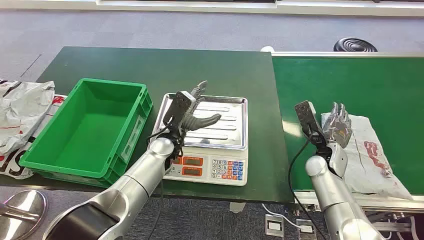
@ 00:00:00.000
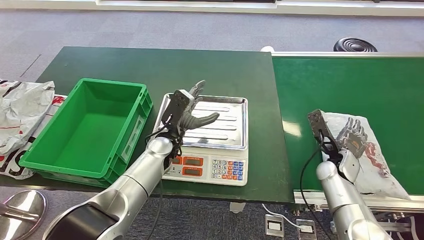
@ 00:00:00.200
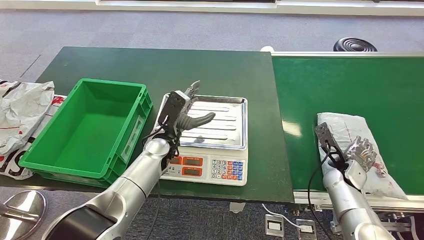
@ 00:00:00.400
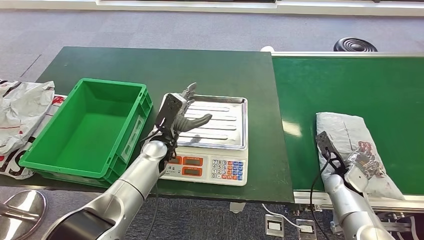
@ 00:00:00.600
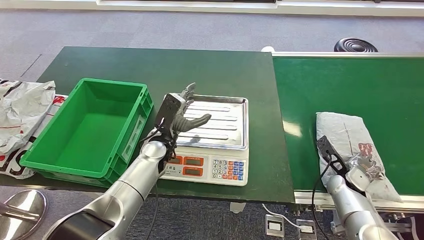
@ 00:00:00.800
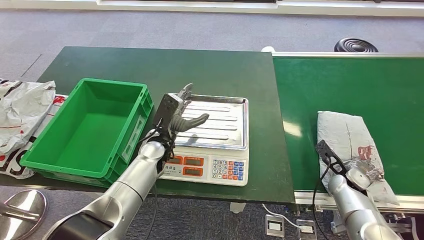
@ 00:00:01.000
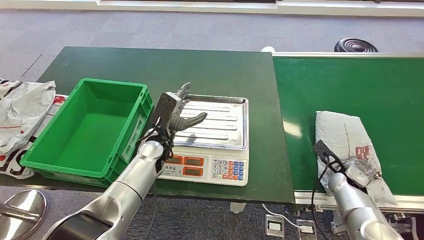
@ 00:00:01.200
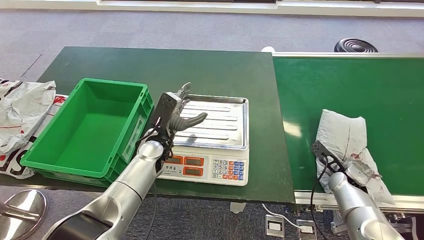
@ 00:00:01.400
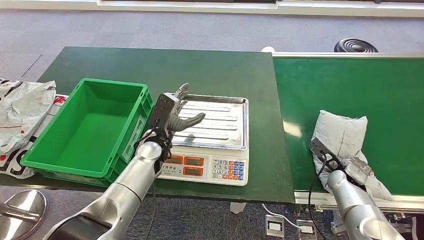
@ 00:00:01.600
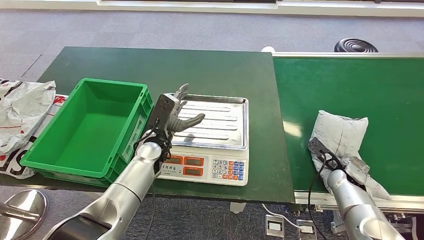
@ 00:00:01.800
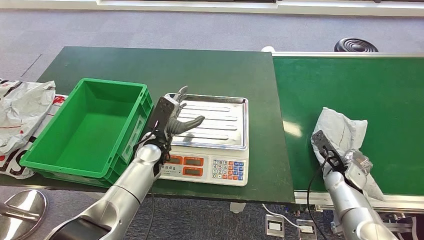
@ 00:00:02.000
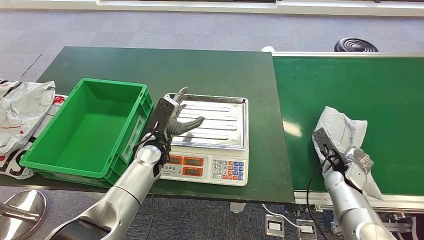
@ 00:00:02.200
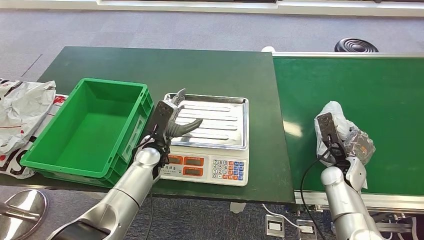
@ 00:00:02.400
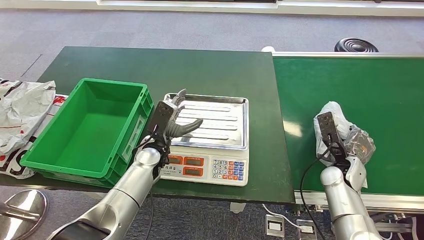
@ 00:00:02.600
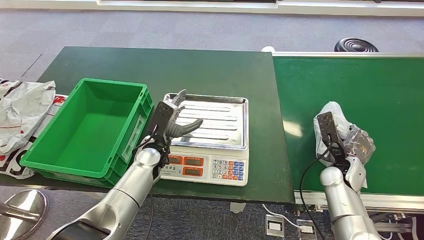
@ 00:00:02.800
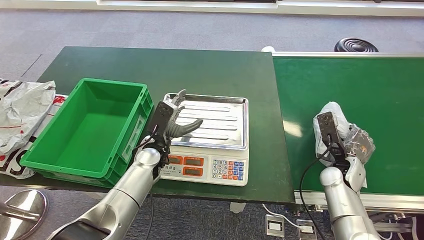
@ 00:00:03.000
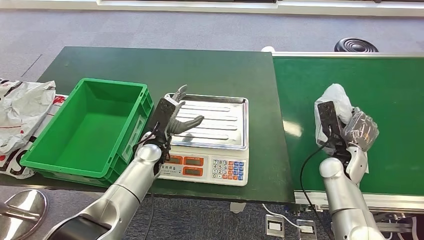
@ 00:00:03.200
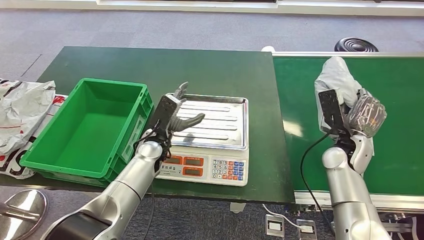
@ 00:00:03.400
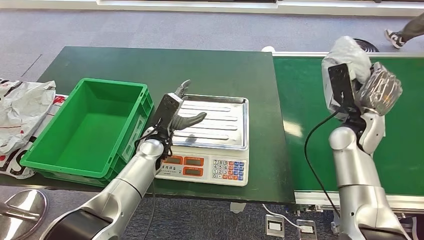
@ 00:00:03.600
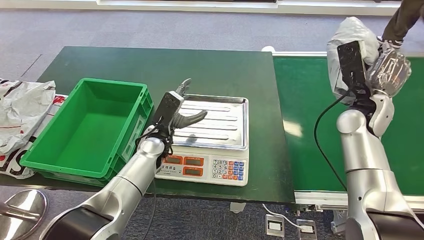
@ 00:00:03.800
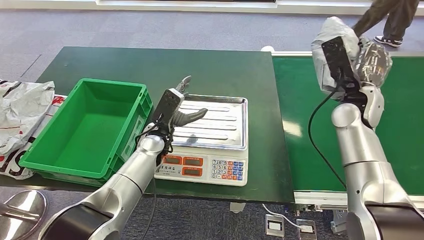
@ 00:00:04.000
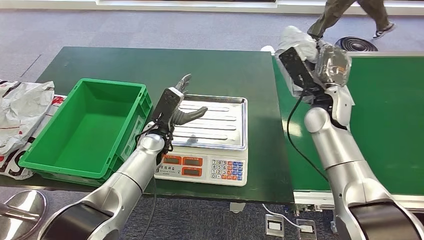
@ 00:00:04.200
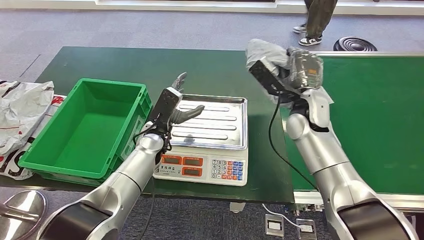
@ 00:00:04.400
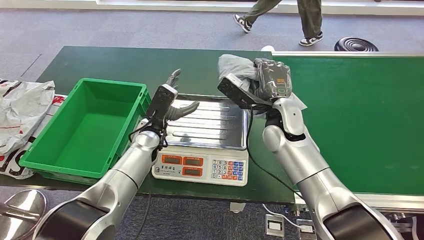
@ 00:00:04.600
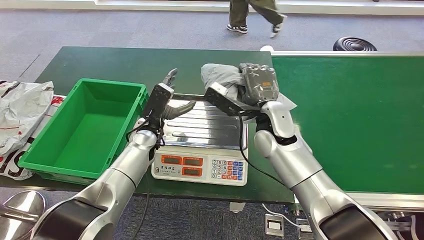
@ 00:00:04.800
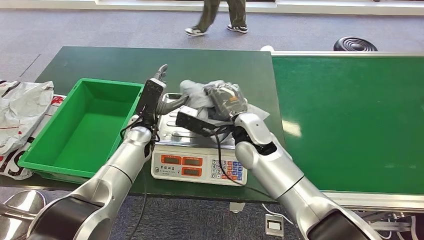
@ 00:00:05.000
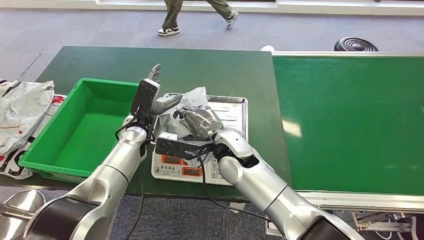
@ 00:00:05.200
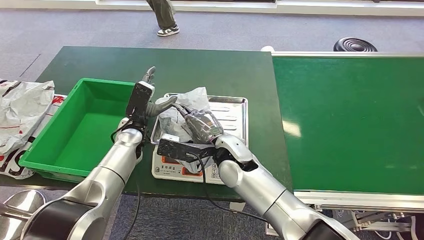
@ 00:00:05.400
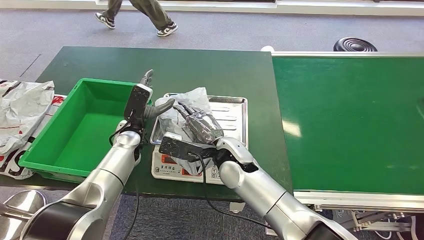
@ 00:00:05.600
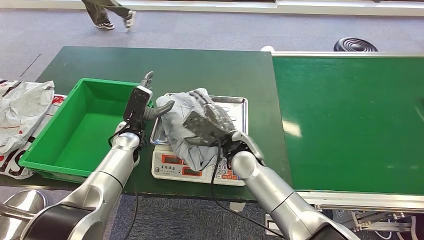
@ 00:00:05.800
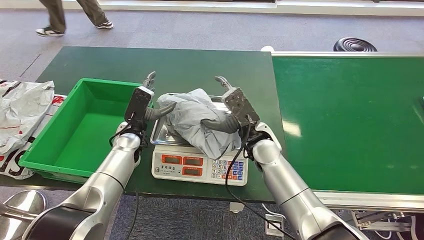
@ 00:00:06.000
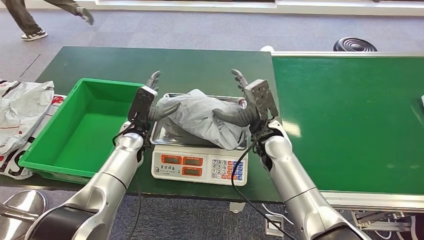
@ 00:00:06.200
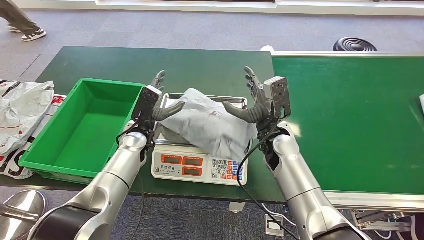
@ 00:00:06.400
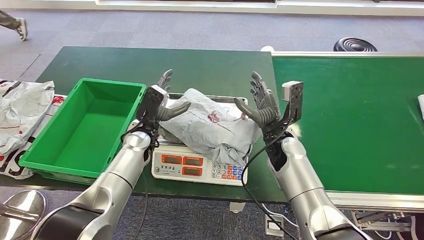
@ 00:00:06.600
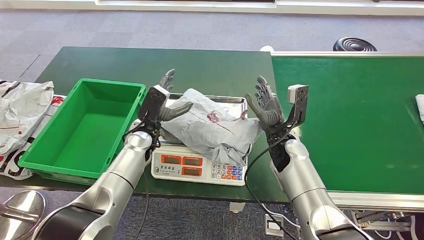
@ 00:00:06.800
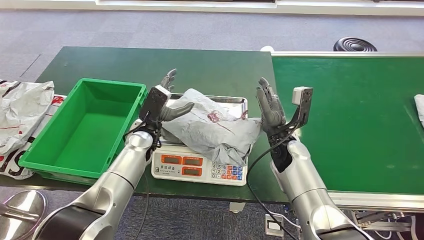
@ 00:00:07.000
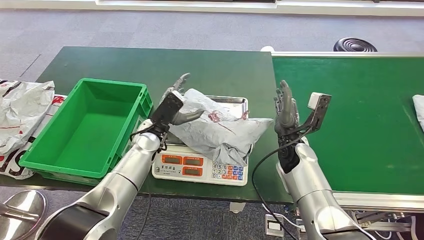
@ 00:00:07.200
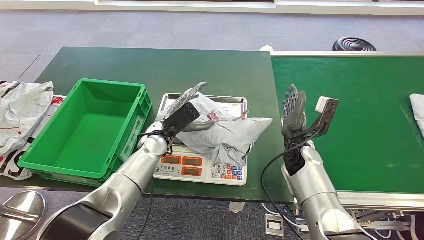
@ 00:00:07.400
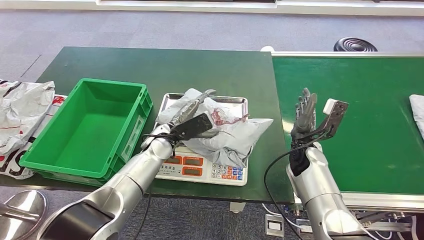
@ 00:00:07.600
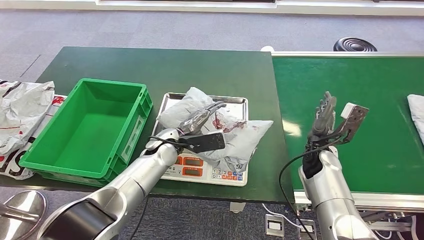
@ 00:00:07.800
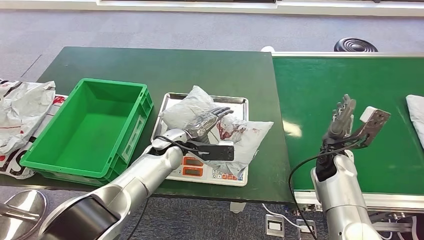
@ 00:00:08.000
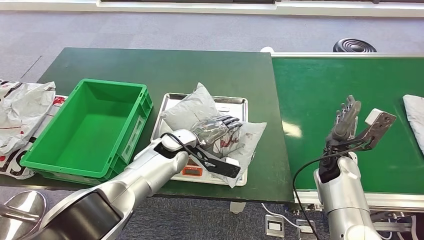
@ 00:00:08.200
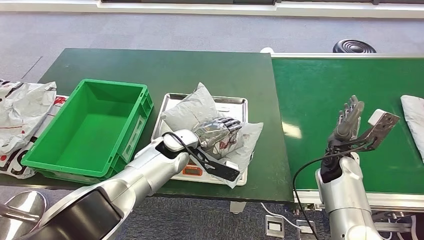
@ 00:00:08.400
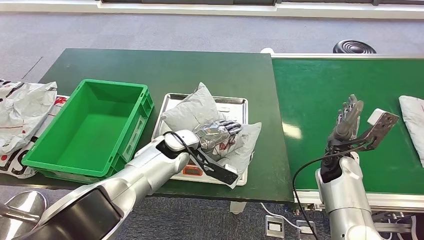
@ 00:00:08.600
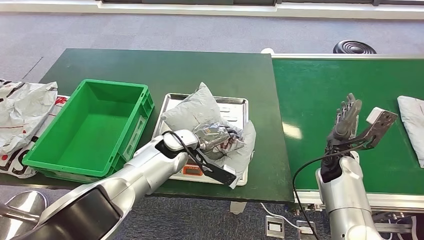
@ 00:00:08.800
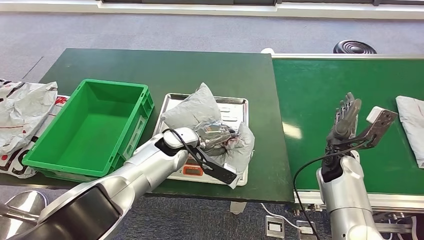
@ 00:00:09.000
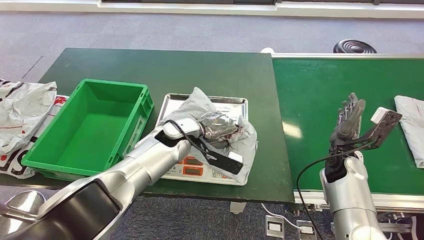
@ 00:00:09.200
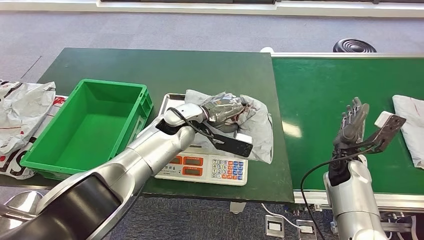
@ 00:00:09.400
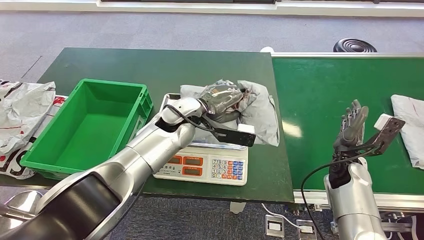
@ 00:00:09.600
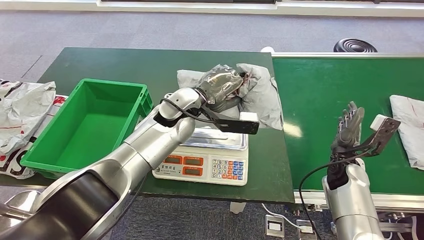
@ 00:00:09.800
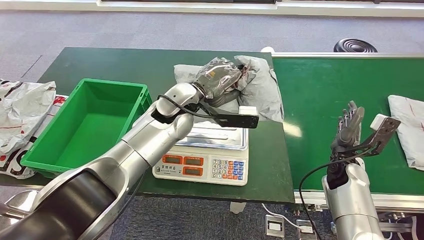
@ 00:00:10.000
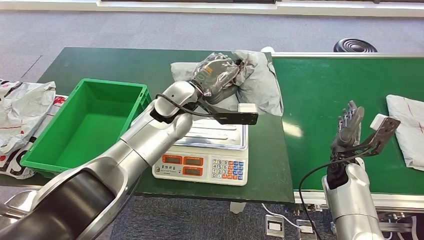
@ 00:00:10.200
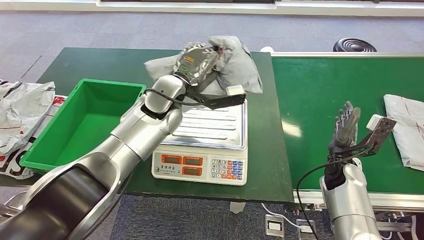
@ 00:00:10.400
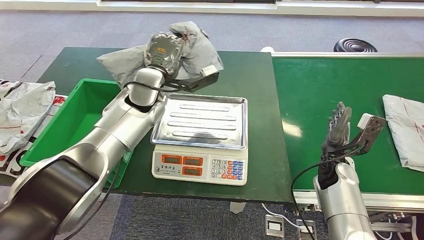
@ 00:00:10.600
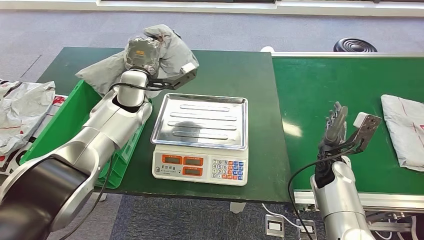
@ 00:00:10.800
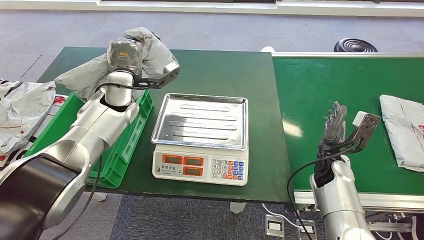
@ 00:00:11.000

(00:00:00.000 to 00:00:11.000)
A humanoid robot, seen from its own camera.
Step, 00:00:00.000 - 00:00:03.600: Take the parcel off the conveyor belt.
Step, 00:00:03.800 - 00:00:06.600: Place the parcel onto the inbound machine.
Step, 00:00:06.800 - 00:00:10.400: Pick up the parcel from the inbound machine.
00:00:01.600 - 00:00:03.200: The right hand moves upward, about 5 cm.

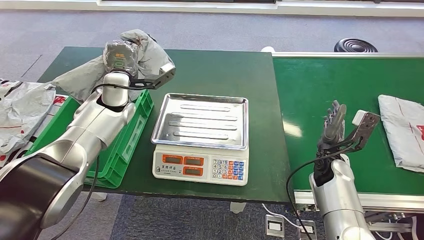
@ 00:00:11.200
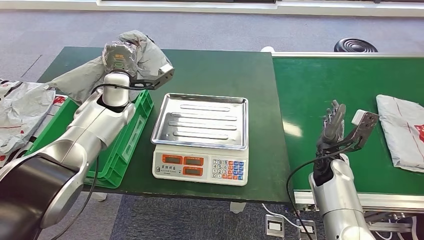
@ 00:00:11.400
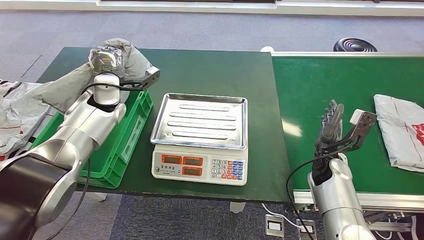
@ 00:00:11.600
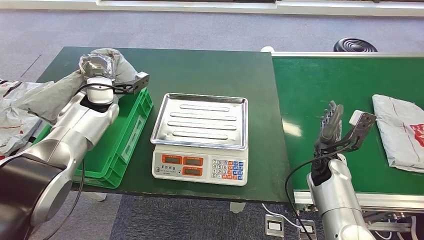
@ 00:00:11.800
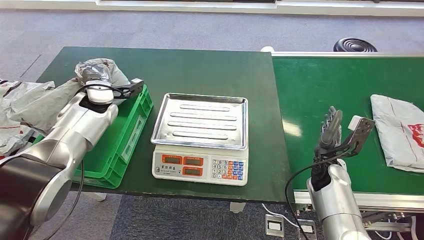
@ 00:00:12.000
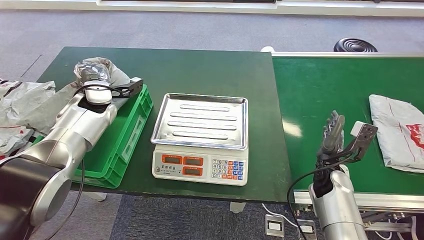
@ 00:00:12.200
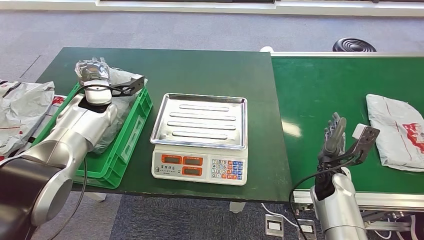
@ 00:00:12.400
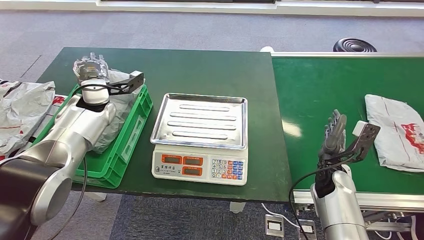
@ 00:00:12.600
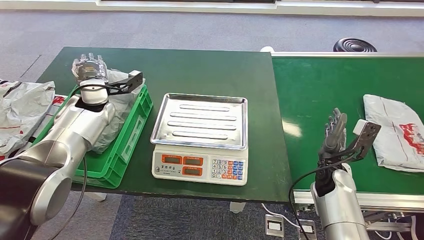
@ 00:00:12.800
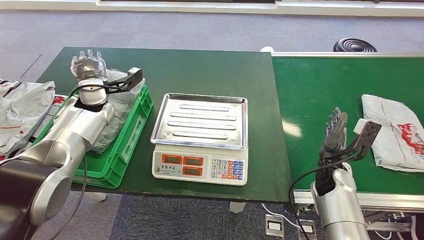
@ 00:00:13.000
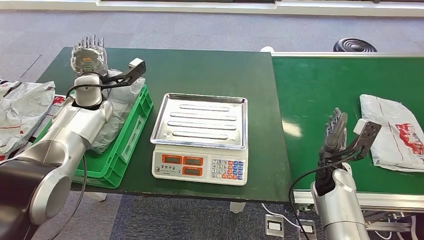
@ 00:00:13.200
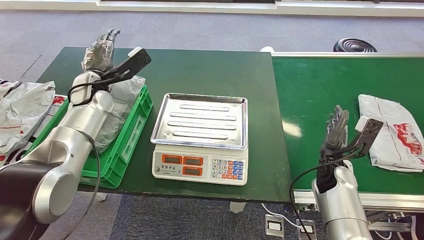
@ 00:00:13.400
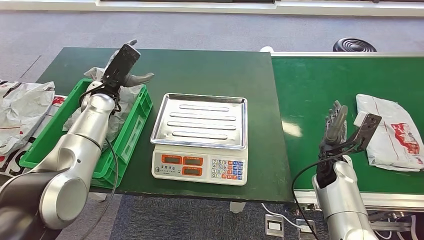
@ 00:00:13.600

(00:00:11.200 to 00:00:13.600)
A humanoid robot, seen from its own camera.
Step, 00:00:11.200 - 00:00:13.600: Put the parcel inside the courier box.
